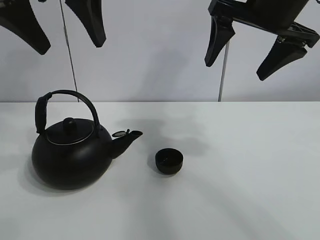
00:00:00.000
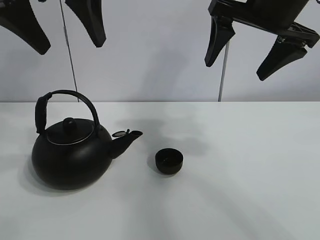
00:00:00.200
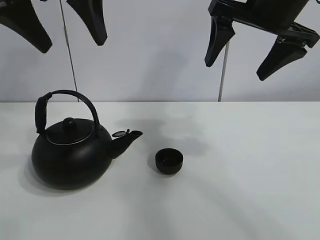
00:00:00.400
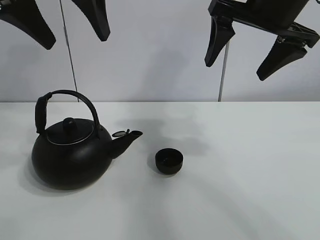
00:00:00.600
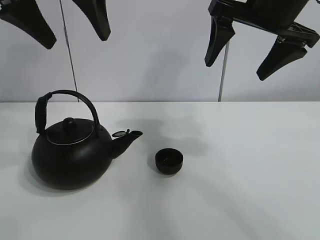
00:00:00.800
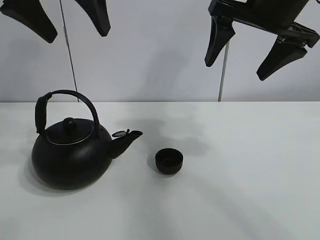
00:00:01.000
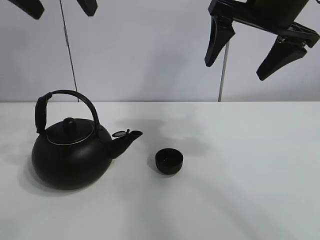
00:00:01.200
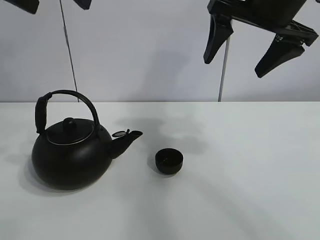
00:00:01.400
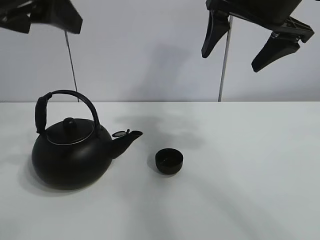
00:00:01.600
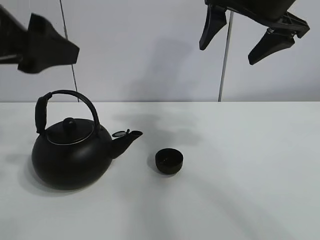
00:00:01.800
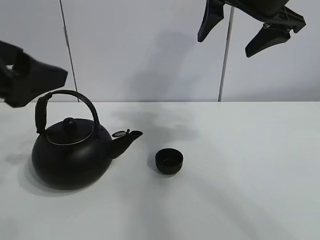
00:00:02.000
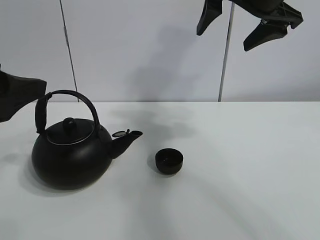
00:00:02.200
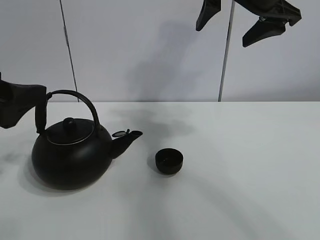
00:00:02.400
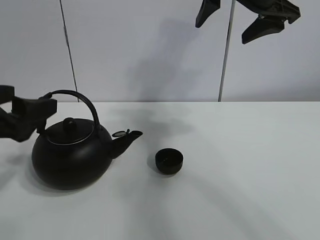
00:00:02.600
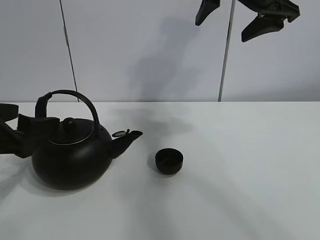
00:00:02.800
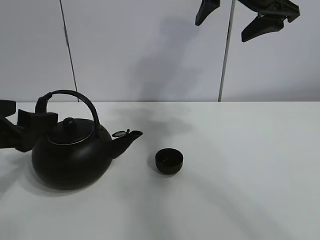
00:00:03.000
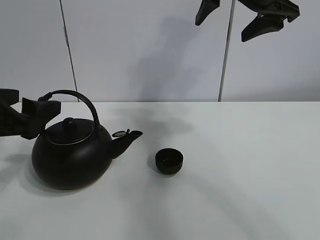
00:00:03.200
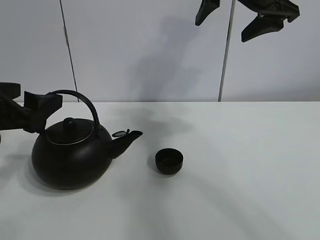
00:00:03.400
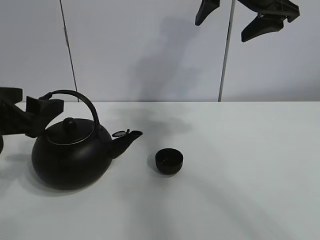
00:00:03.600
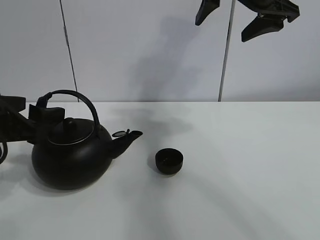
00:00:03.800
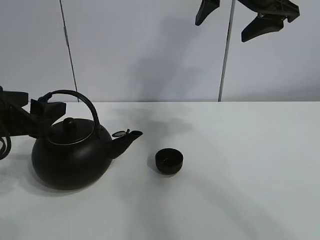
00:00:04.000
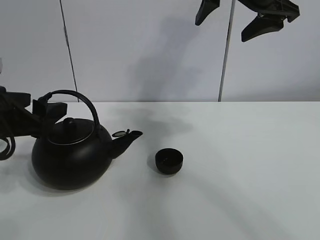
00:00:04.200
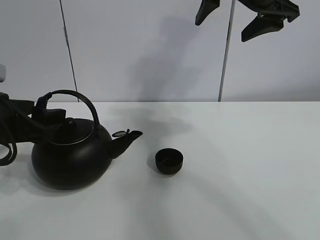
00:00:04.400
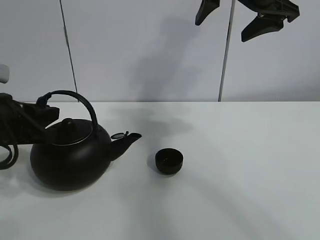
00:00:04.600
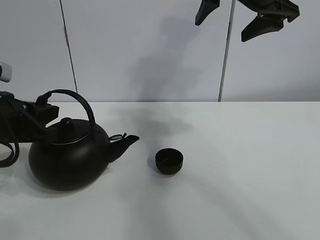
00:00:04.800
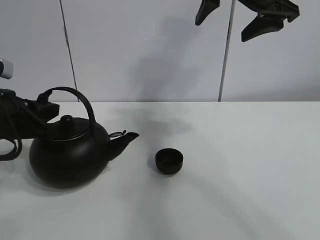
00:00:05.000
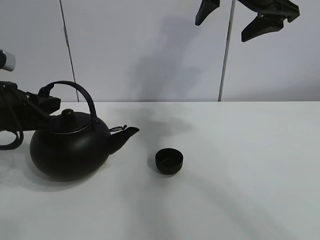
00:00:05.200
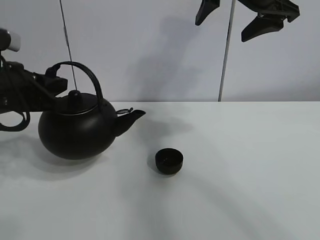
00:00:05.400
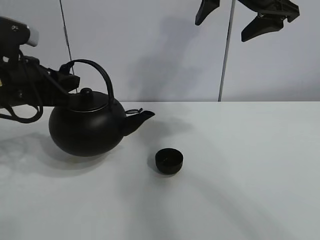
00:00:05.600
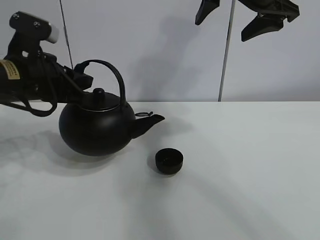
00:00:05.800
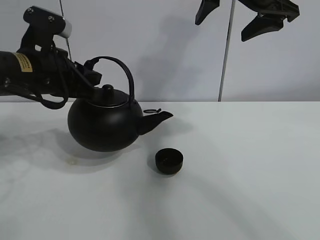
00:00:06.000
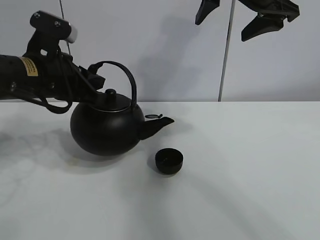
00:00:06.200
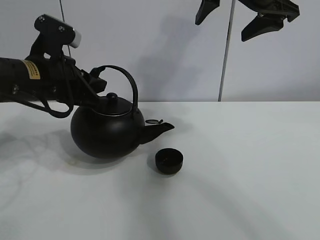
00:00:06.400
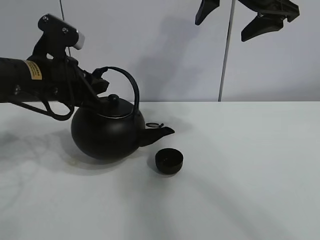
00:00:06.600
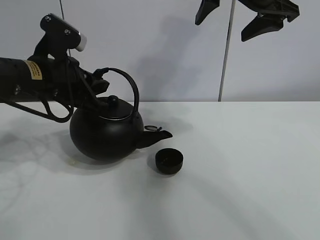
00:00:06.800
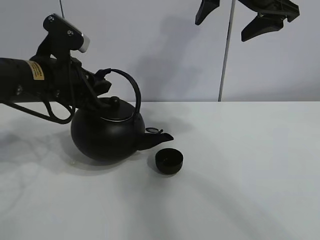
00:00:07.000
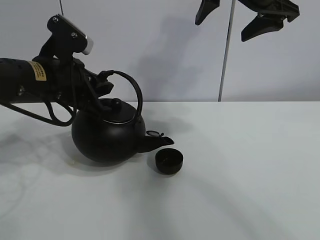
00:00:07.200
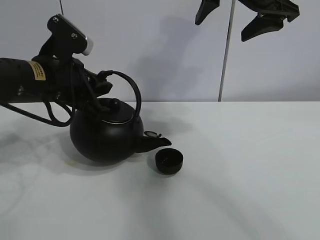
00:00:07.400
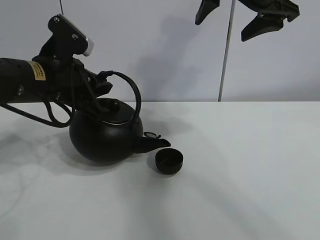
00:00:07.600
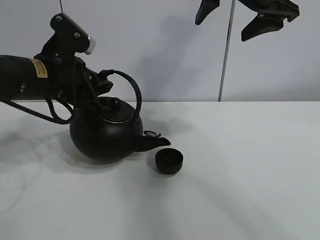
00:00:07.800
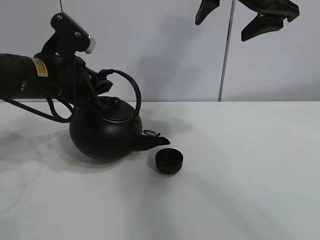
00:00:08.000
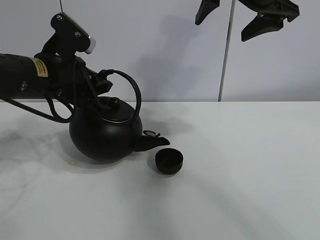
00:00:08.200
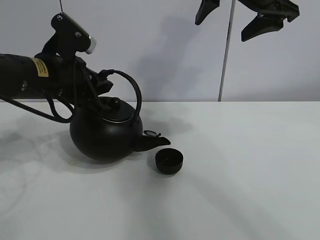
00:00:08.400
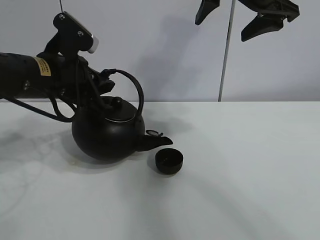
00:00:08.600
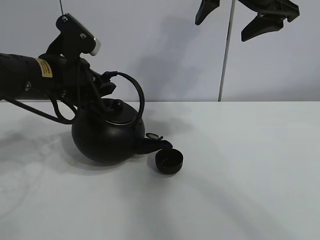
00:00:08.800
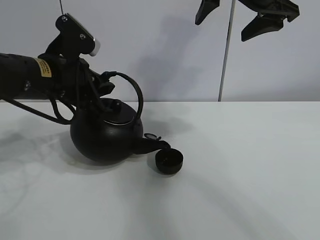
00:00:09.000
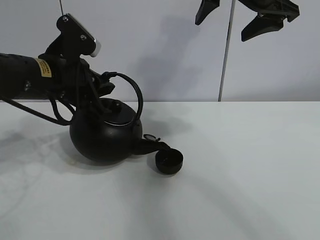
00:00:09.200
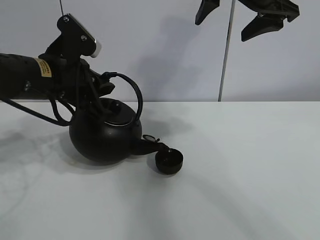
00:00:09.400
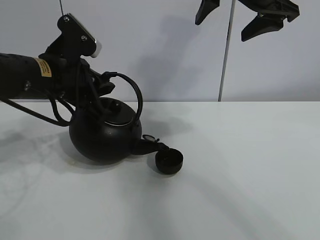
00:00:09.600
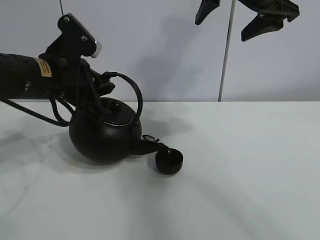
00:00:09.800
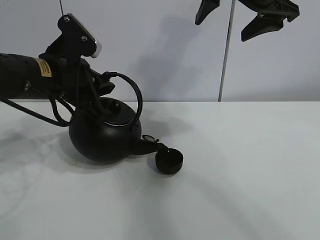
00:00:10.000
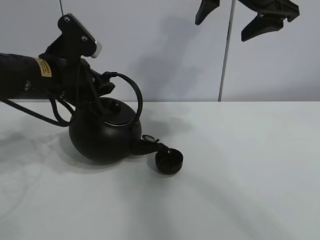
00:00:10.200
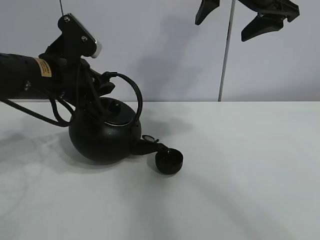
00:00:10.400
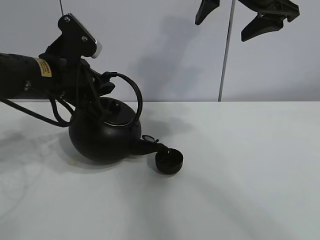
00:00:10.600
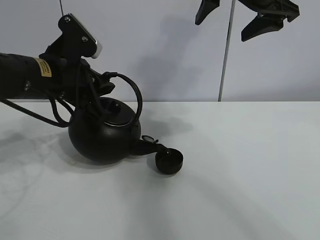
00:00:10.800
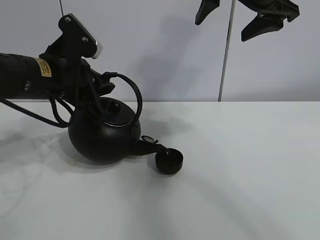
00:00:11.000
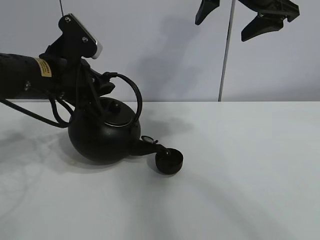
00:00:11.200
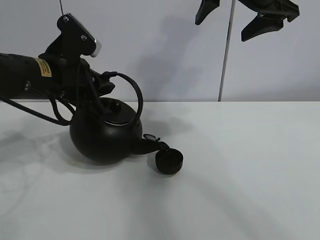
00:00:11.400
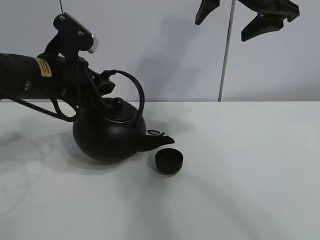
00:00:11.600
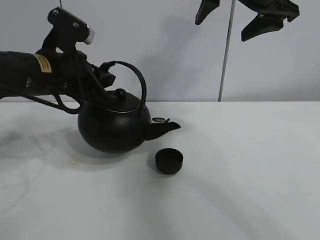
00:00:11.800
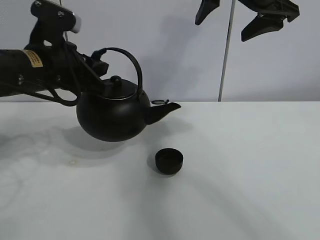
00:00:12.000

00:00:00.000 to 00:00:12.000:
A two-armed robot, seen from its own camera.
Task of the whole recording: pour tea into the teacup.
Step, 00:00:00.000 to 00:00:04.800: Pick up the teapot with the left gripper.
Step, 00:00:05.000 to 00:00:11.600: Pour tea into the teacup with the left gripper.
00:00:00.000 to 00:00:01.600: The left gripper heads backward, covering approximately 5 cm.
00:00:01.600 to 00:00:03.000: The left gripper shifts about 20 cm downward.
00:00:03.000 to 00:00:04.400: The grippers make only small movements.
00:00:04.400 to 00:00:06.000: The left gripper shifts approximately 10 cm to the right, forward and upward, and closes its fingers.
00:00:06.000 to 00:00:07.600: The grippers make only small movements.
00:00:07.600 to 00:00:09.000: The two grippers keep their place.
00:00:09.000 to 00:00:10.400: The two grippers keep their place.
00:00:10.400 to 00:00:12.000: There are only small adjustments of the grippers.

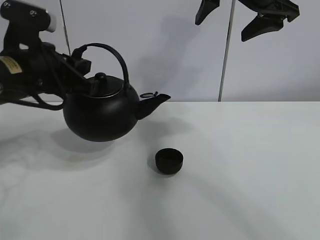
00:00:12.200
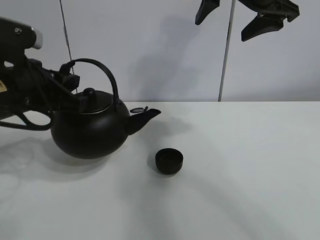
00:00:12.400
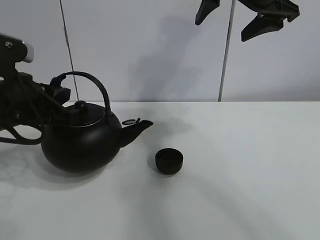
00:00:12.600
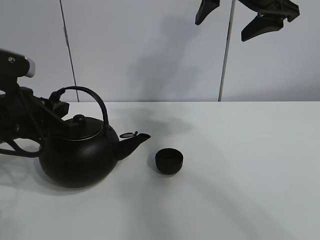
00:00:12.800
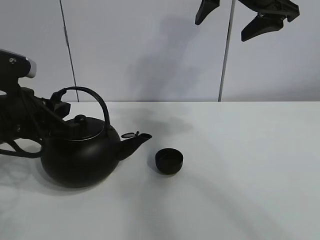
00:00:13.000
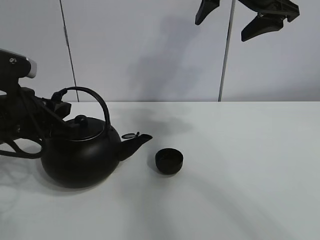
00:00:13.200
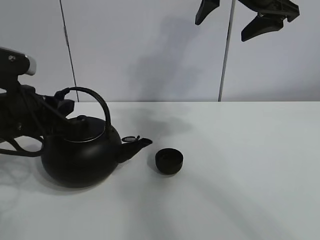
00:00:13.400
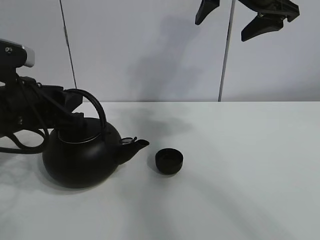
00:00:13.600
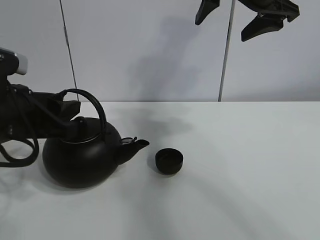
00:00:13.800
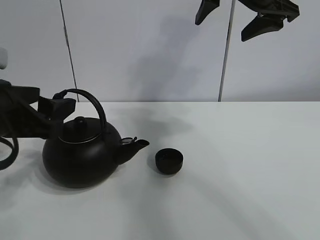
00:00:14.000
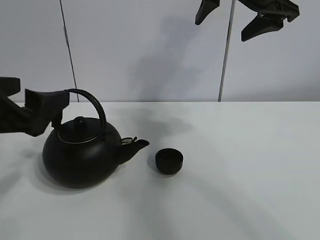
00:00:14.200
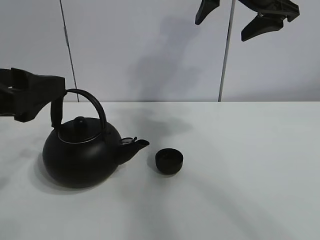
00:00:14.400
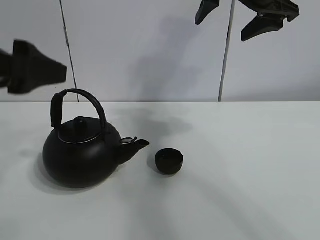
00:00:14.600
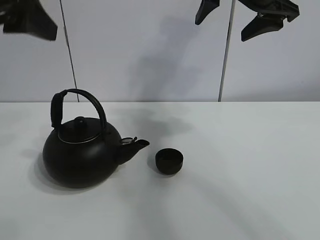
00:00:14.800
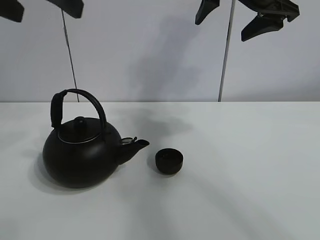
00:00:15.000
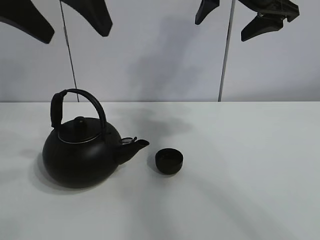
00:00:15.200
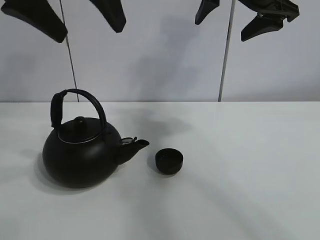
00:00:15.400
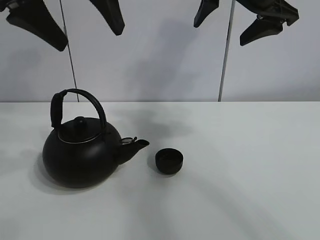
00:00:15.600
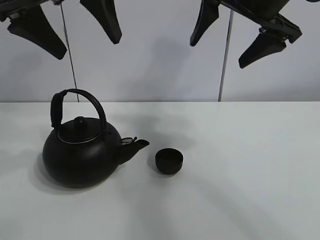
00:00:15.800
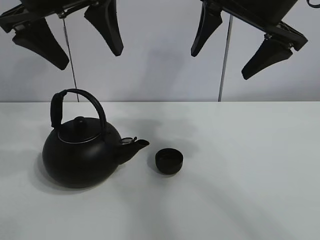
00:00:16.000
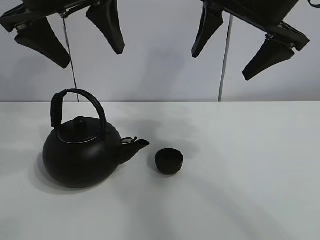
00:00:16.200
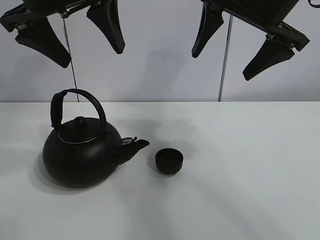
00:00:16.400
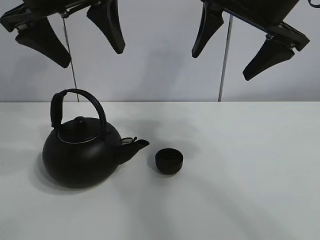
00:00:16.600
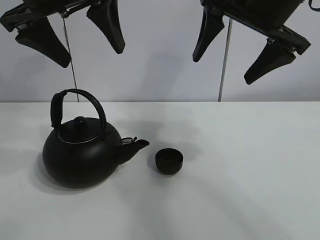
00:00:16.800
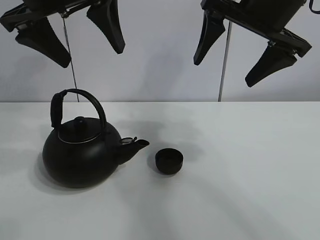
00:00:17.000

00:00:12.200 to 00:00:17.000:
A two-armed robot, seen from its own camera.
Task of the whole recording: pour tea into the teacup.
00:00:12.200 to 00:00:13.800: The left gripper is displaced backward by approximately 5 cm, and opens its fingers.
00:00:13.800 to 00:00:15.400: The left gripper shifts some 20 cm upward, and opens its fingers.
00:00:15.400 to 00:00:17.000: The left gripper shifts by approximately 5 cm.
